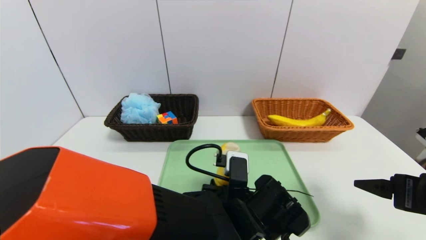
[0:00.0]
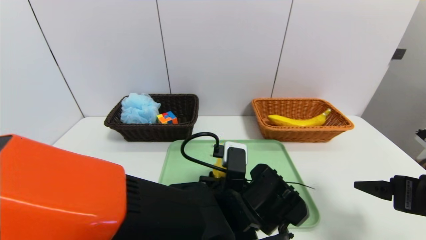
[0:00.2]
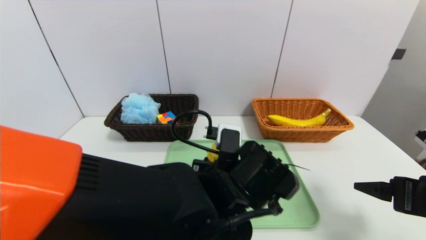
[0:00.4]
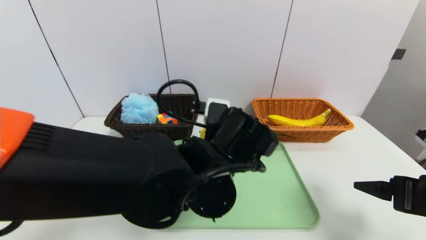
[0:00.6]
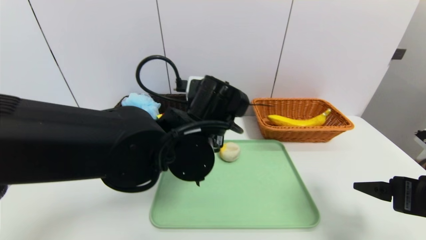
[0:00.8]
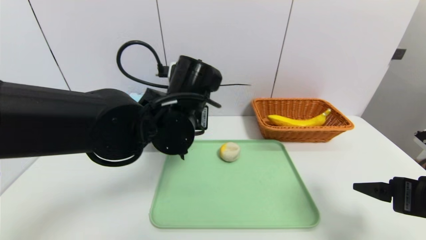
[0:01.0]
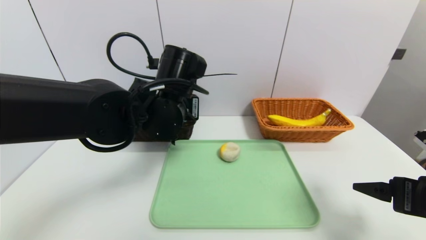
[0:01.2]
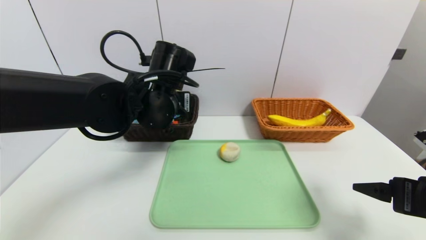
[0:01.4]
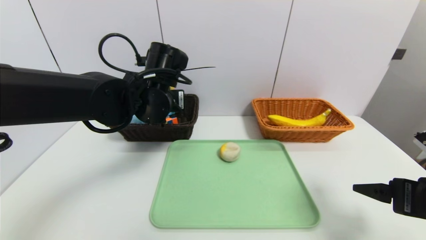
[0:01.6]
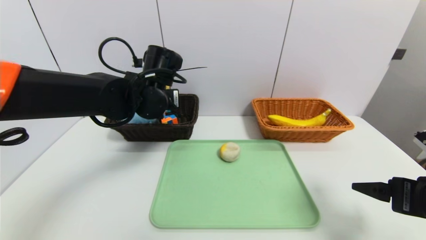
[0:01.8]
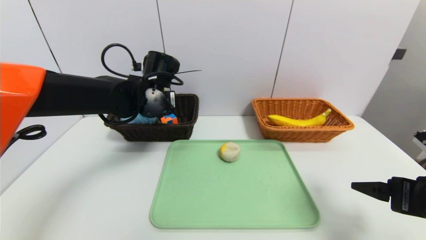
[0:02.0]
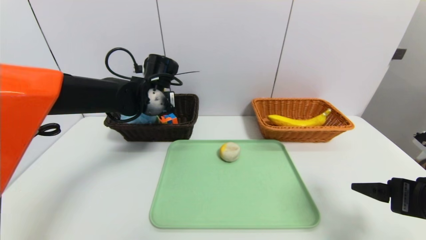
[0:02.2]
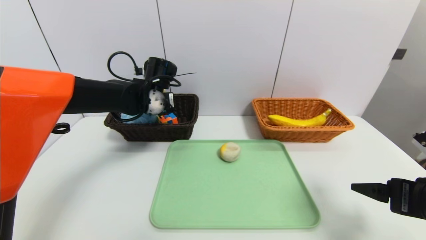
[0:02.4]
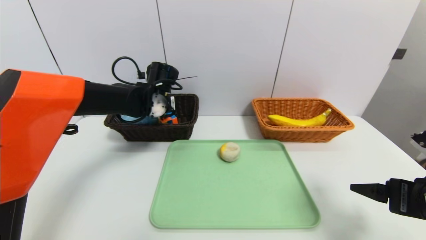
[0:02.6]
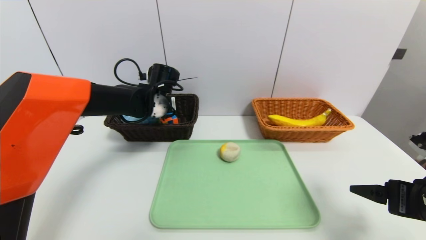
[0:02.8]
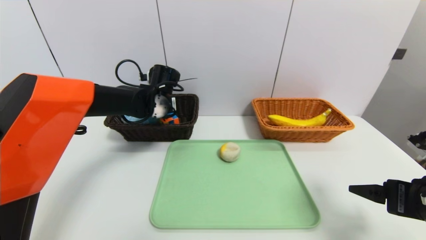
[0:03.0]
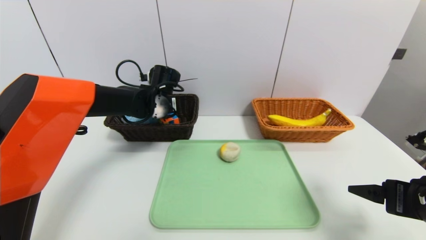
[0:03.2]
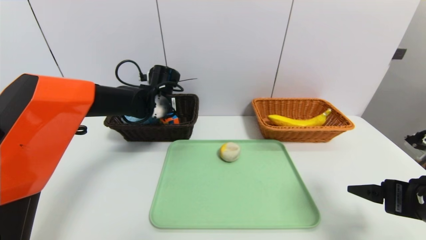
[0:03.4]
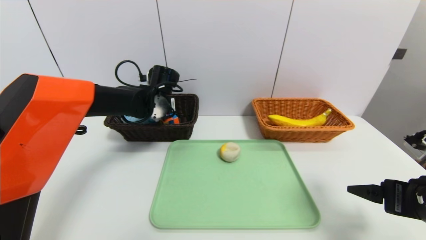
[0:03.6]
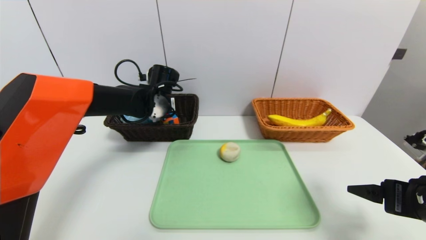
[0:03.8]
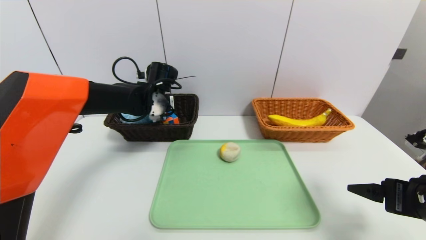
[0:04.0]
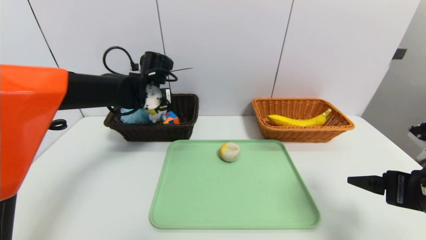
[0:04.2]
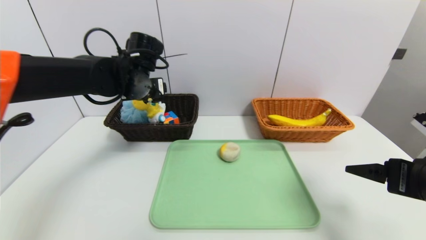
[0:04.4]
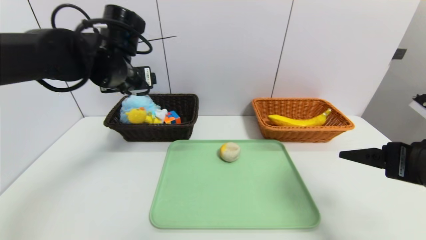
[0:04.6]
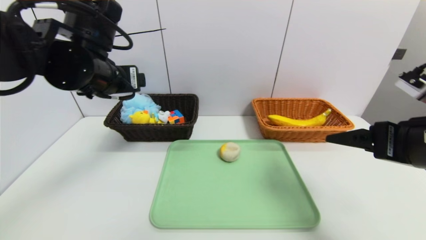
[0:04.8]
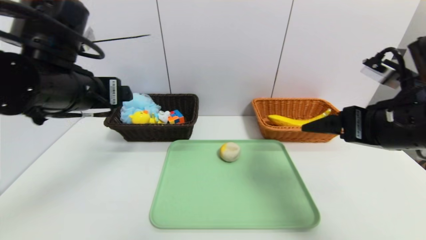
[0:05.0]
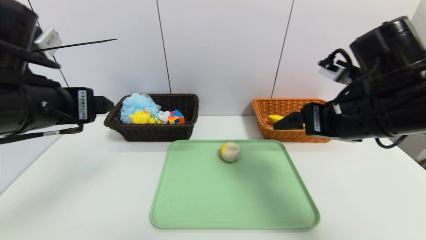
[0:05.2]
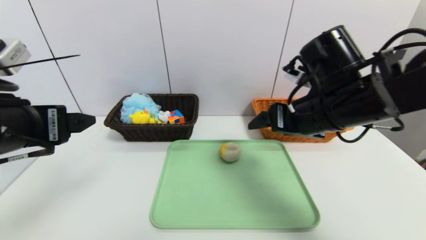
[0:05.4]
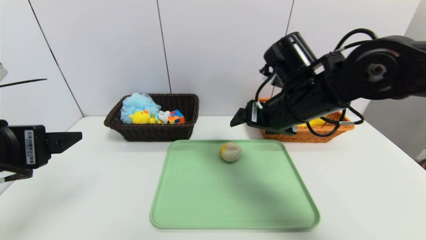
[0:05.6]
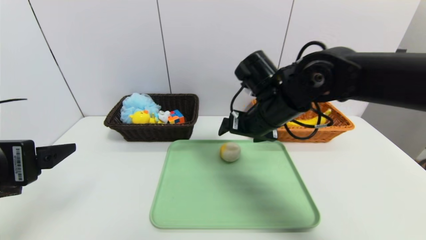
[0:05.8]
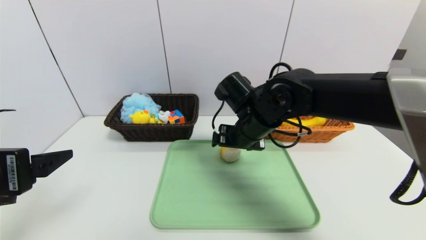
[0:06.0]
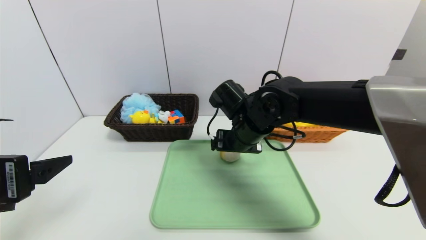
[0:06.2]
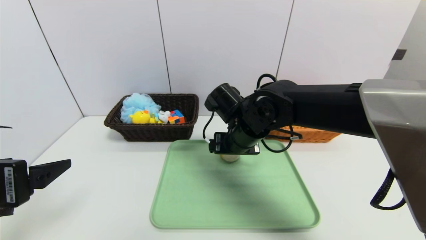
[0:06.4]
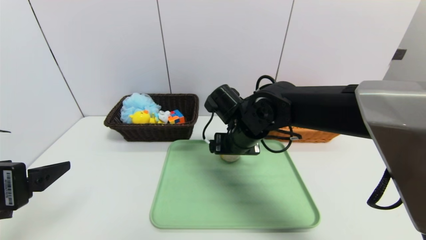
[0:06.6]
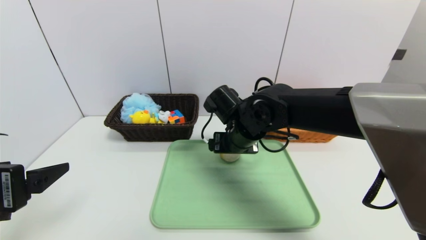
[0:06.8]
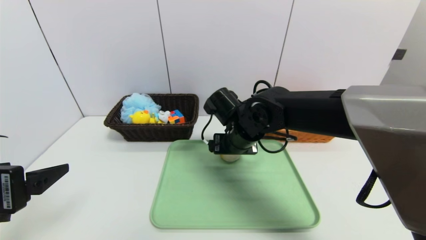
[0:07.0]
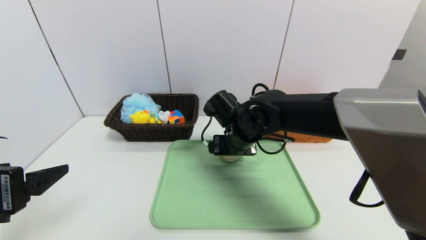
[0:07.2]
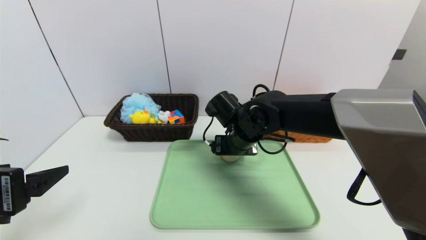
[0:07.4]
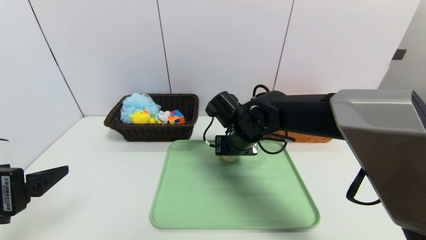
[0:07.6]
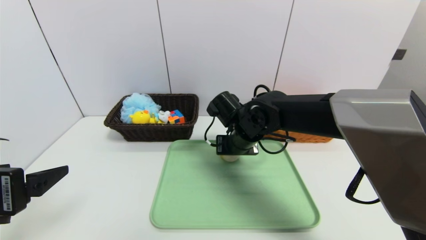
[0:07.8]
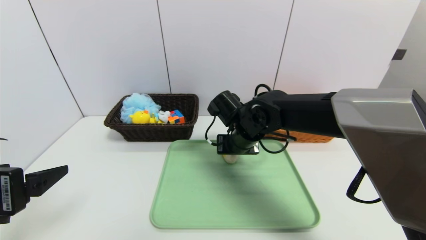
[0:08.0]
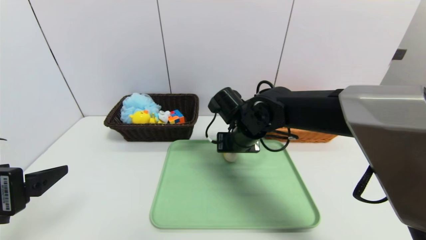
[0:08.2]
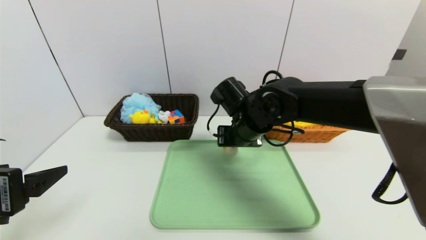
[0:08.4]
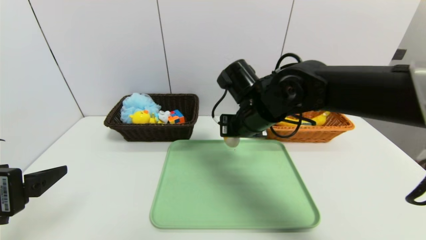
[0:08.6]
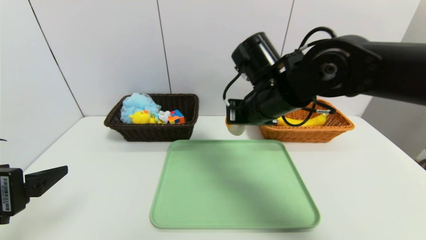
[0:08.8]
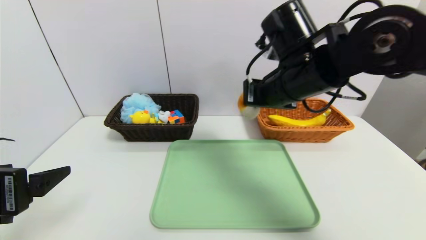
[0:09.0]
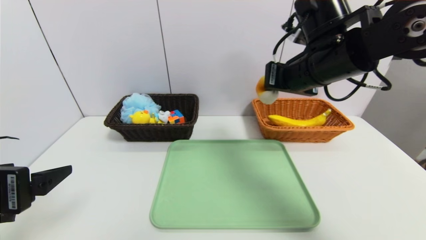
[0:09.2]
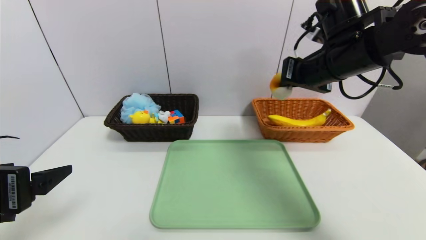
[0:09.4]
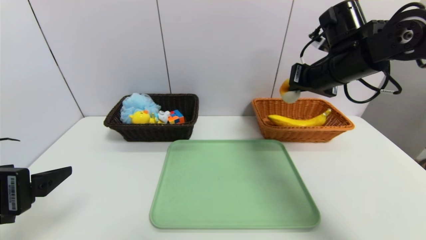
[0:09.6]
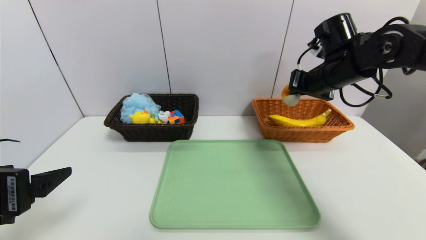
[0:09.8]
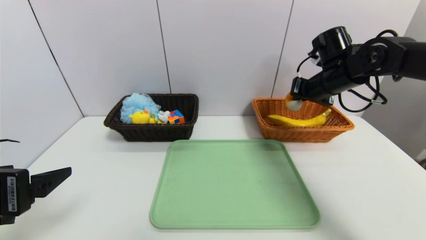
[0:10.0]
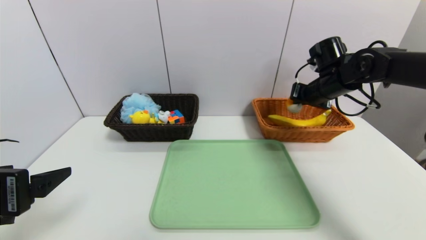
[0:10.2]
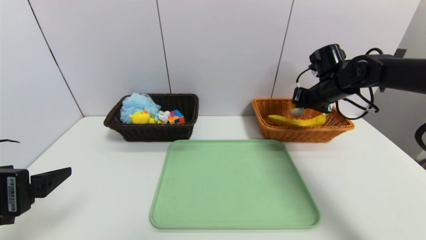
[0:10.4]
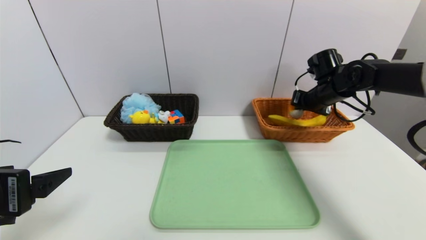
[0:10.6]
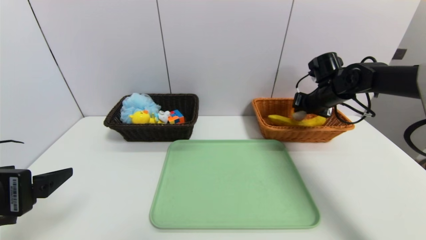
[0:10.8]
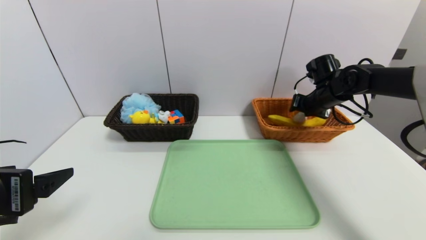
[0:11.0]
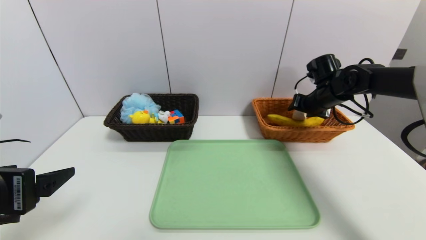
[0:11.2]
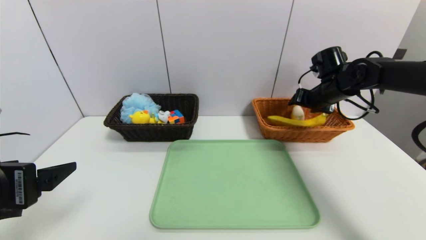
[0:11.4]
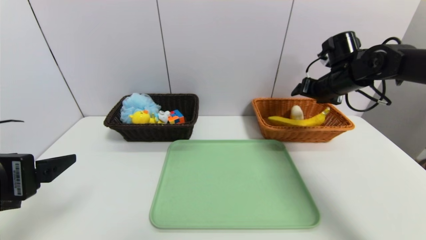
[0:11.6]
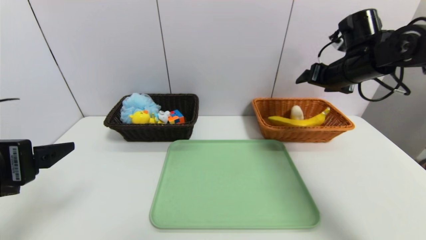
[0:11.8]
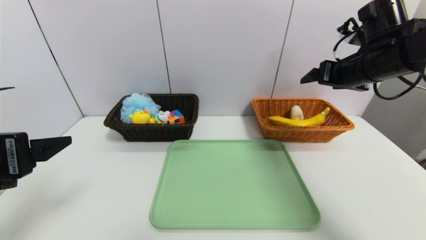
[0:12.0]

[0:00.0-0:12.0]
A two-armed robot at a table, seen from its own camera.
Task of the whole recording: place the food in the right basket with the right gripper, and place the non food items in the left basket with the left gripper.
Step, 0:00.0 to 0:04.4: Grasp the duck toys and put it in the left basket.
Step, 0:04.6 to 0:11.4: Grasp the egg yolk pastry and put it in the right basket.
0:00.0 to 0:01.6: The left gripper heads forward, to the left and upward, covering about 25 cm.
0:01.6 to 0:03.0: The left gripper goes some 10 cm forward and downward.
0:03.0 to 0:04.4: The left gripper shifts approximately 10 cm upward and backward, and opens up.
0:04.4 to 0:06.0: The left gripper heads backward, covering some 25 cm; the right gripper moves to the left and forward, about 30 cm.
0:06.0 to 0:07.6: The right gripper closes.
0:07.6 to 0:09.0: The right gripper heads upward and to the right, covering about 15 cm, and closes its fingers.
0:09.0 to 0:10.4: The right gripper is displaced to the right, forward and downward by roughly 20 cm.
0:10.4 to 0:12.0: The right gripper goes roughly 15 cm backward and upward, and opens up.

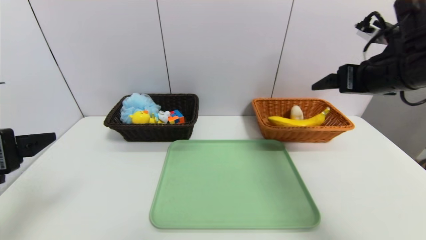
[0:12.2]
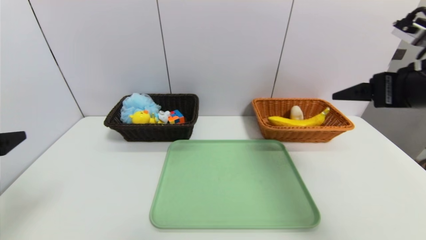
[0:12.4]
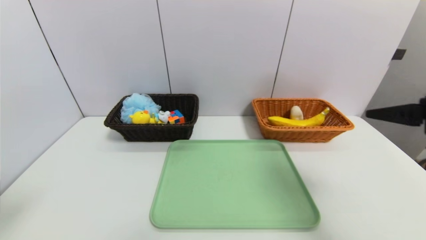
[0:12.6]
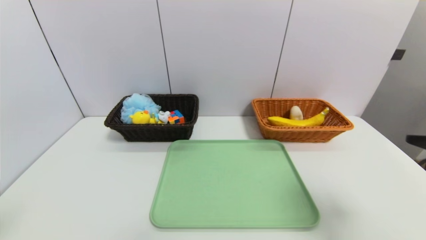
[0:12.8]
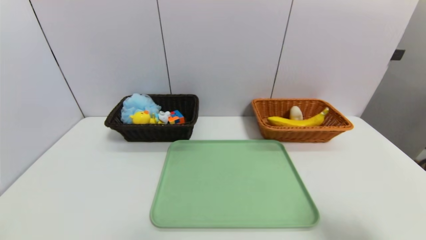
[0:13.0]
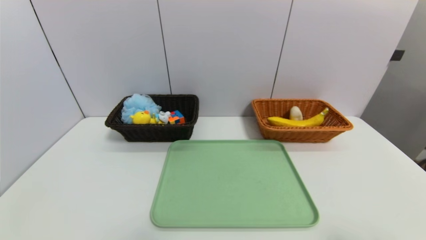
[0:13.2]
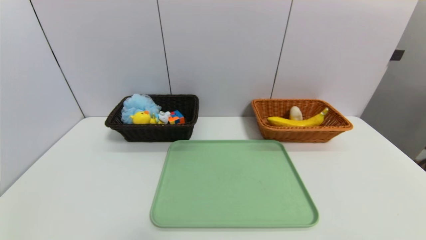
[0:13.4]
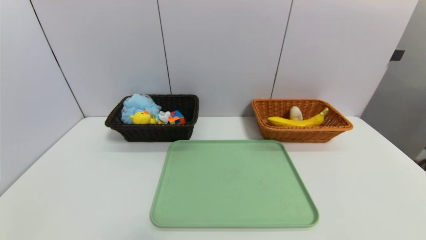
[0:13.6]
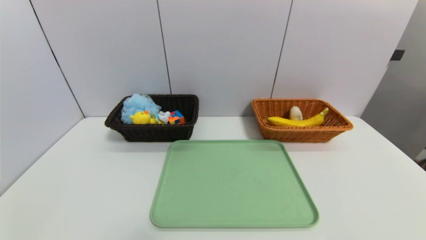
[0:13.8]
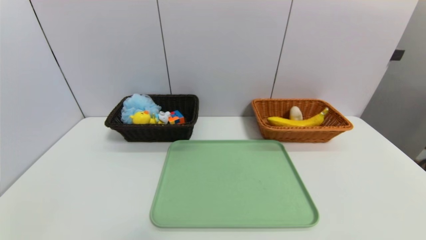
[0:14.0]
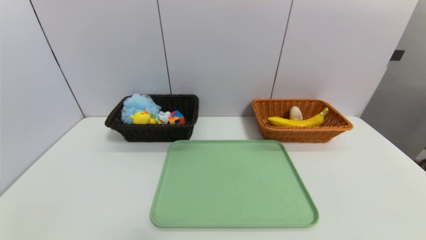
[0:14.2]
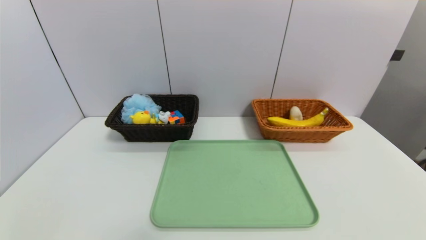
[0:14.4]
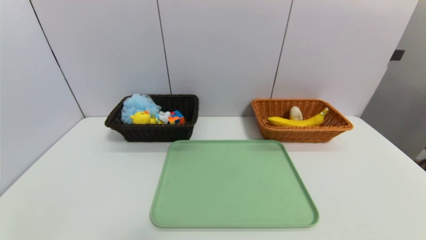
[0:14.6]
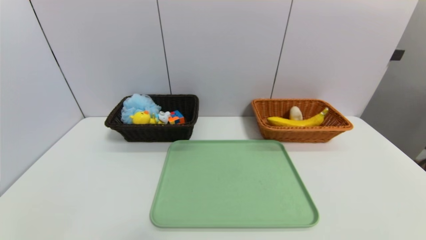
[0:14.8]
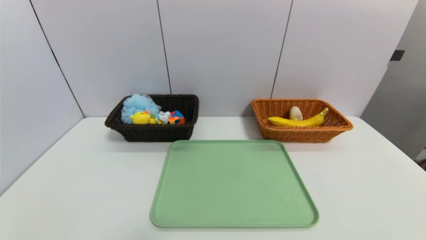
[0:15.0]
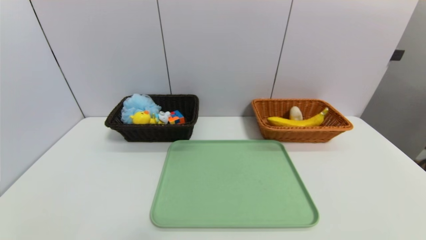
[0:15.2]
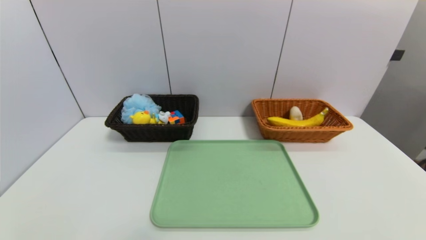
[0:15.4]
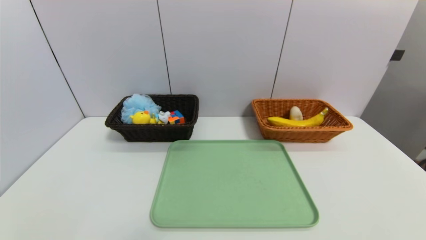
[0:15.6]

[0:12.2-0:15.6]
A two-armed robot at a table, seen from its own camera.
Task of the whole recording: place the food in the right basket with the right gripper, and place the non food items in the left basket with the left gripper.
0:12.2 to 0:13.8: Both grippers move backward and downward, some 25 cm.
